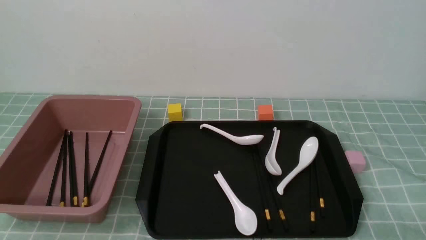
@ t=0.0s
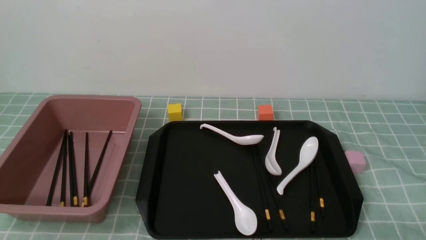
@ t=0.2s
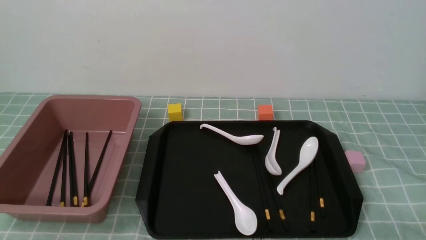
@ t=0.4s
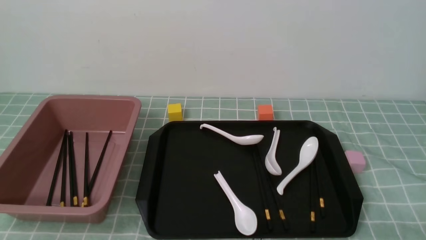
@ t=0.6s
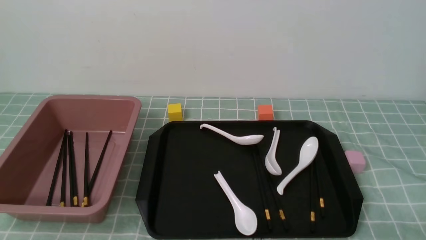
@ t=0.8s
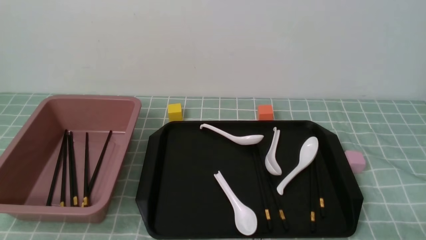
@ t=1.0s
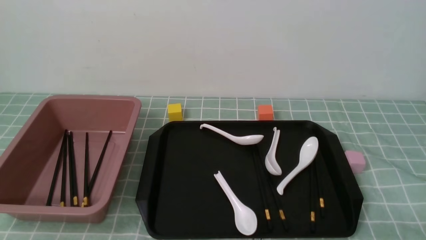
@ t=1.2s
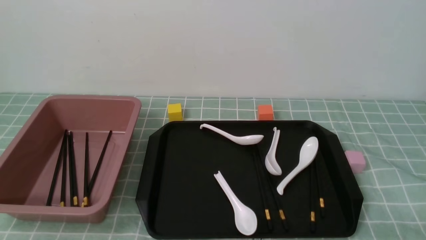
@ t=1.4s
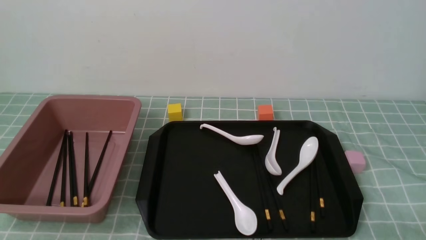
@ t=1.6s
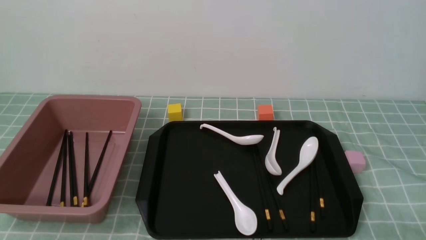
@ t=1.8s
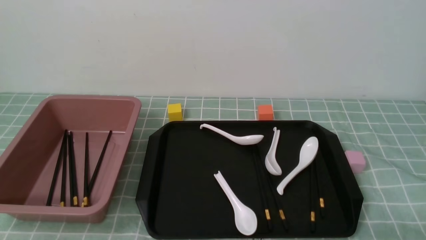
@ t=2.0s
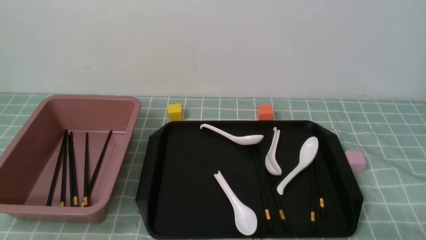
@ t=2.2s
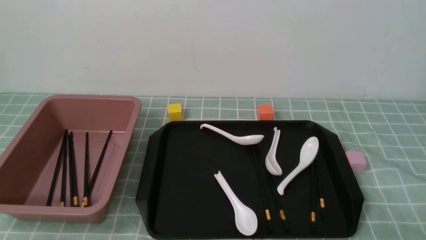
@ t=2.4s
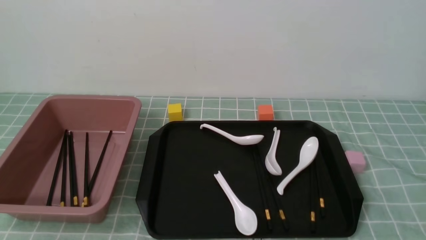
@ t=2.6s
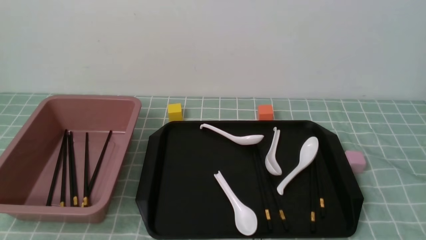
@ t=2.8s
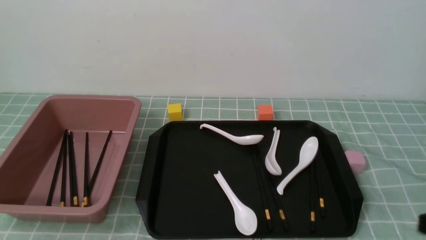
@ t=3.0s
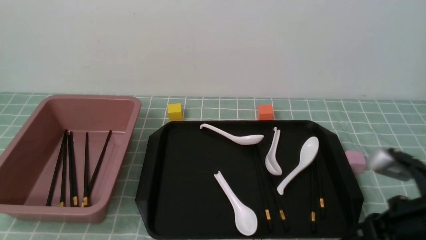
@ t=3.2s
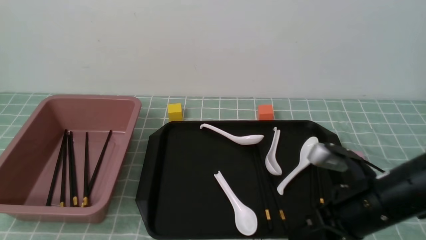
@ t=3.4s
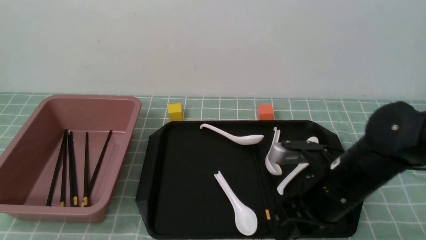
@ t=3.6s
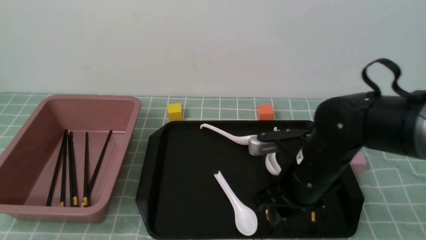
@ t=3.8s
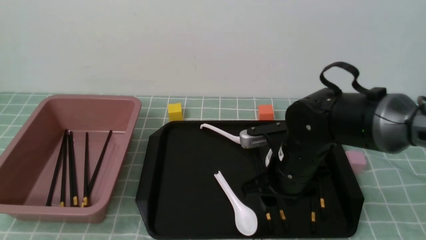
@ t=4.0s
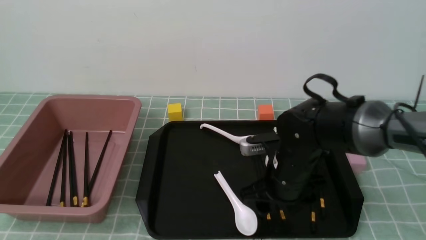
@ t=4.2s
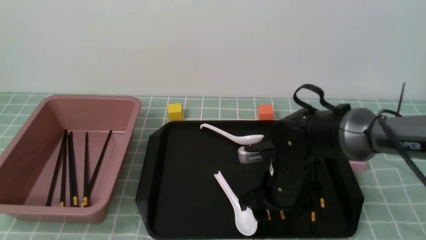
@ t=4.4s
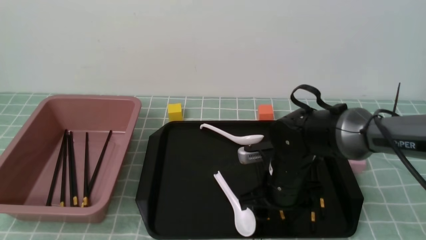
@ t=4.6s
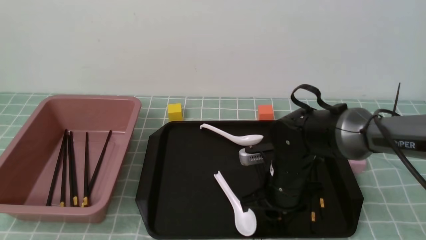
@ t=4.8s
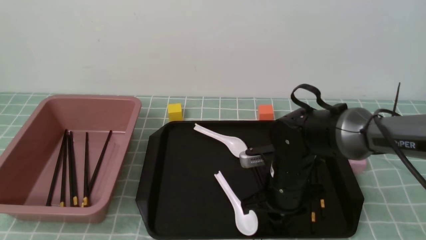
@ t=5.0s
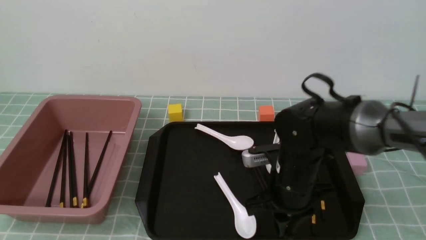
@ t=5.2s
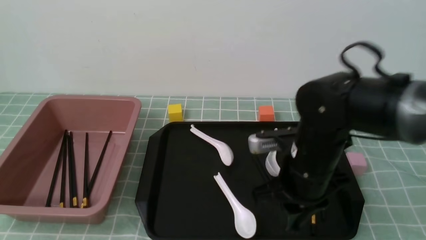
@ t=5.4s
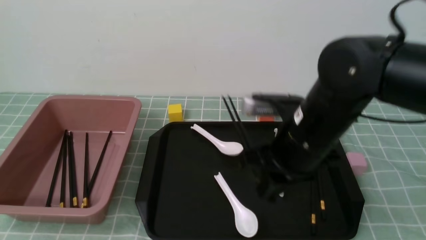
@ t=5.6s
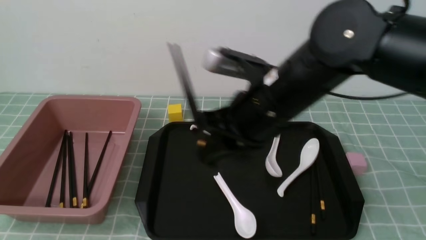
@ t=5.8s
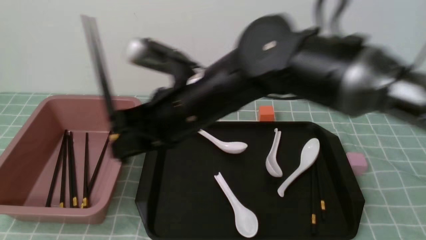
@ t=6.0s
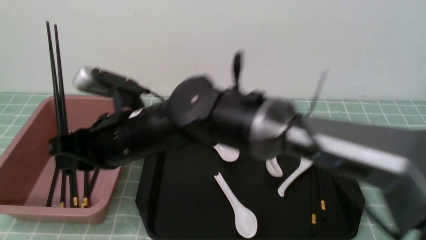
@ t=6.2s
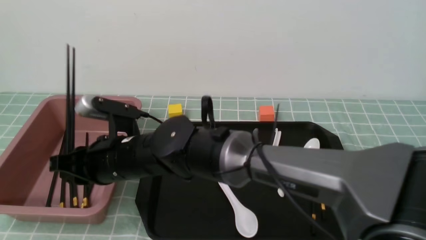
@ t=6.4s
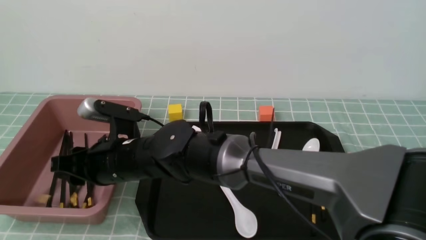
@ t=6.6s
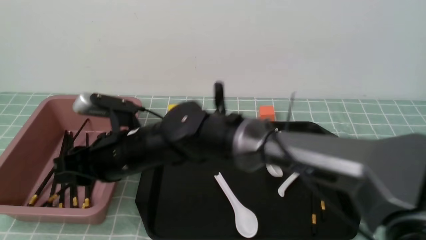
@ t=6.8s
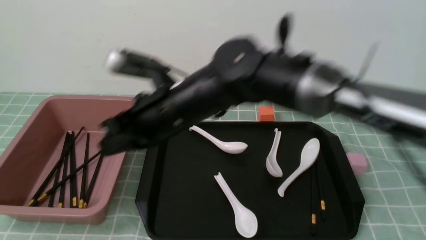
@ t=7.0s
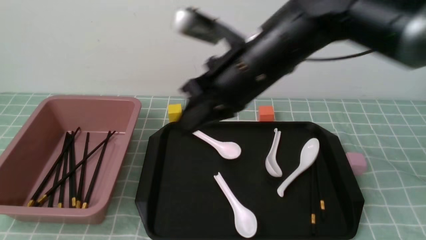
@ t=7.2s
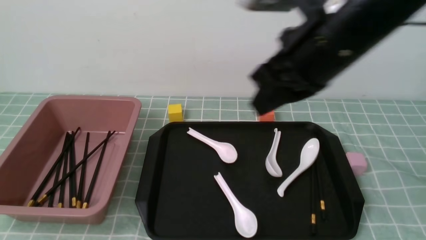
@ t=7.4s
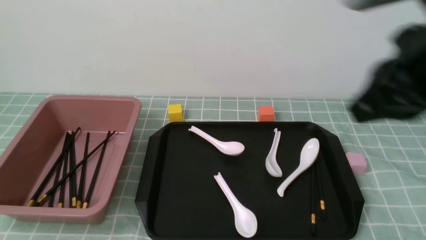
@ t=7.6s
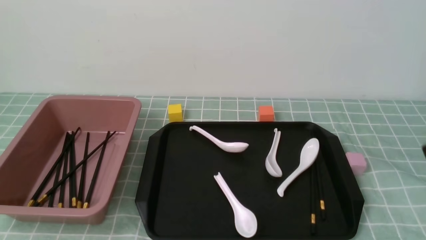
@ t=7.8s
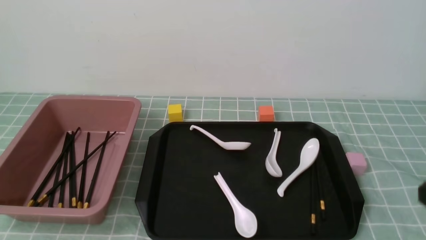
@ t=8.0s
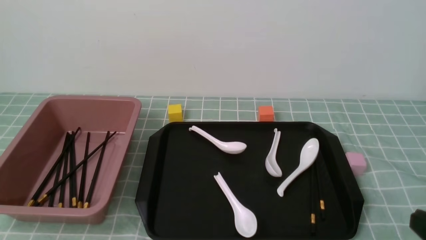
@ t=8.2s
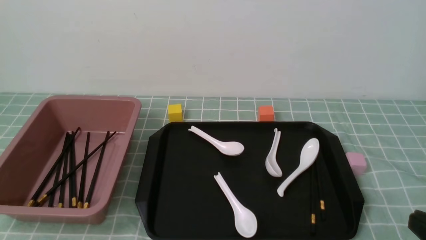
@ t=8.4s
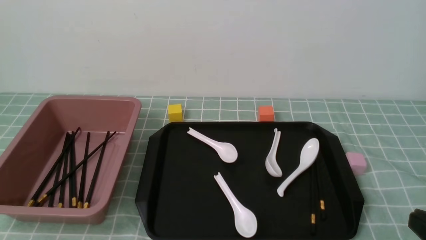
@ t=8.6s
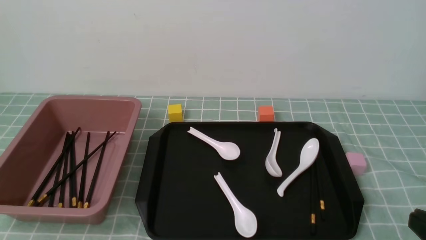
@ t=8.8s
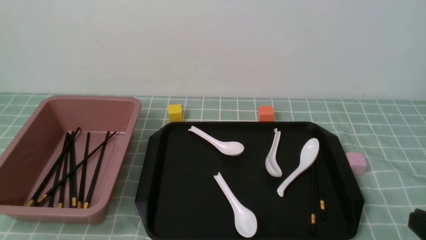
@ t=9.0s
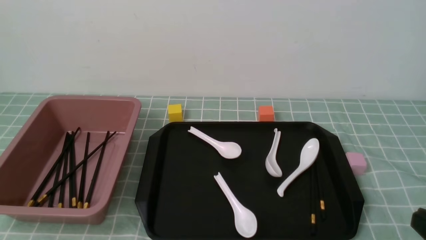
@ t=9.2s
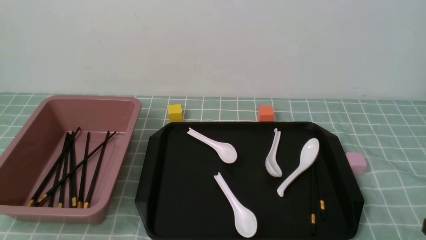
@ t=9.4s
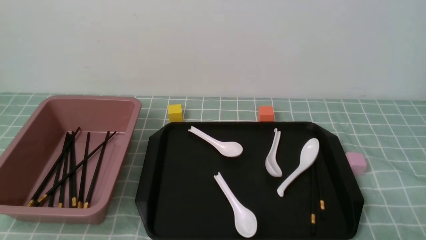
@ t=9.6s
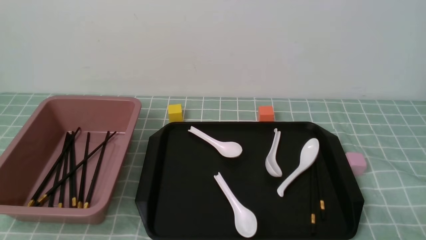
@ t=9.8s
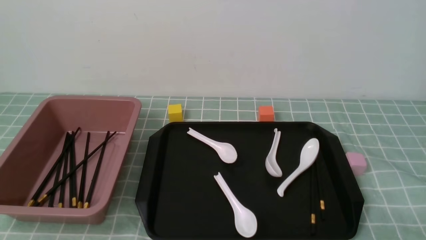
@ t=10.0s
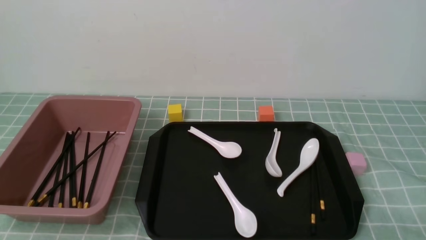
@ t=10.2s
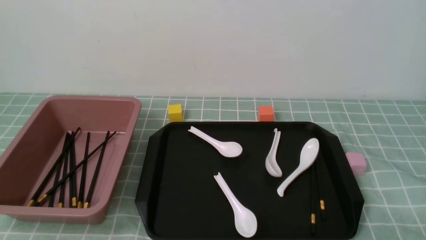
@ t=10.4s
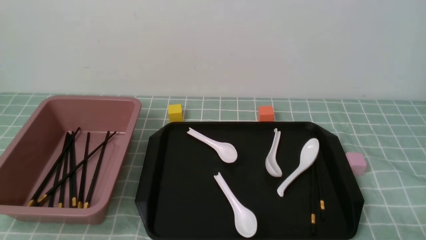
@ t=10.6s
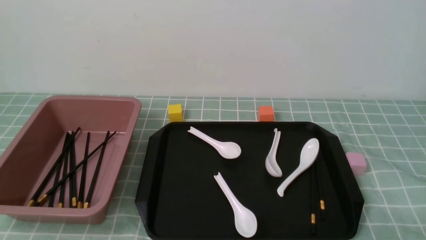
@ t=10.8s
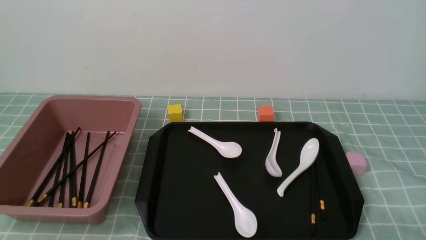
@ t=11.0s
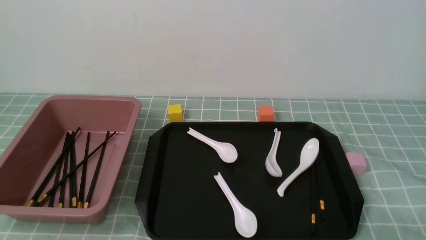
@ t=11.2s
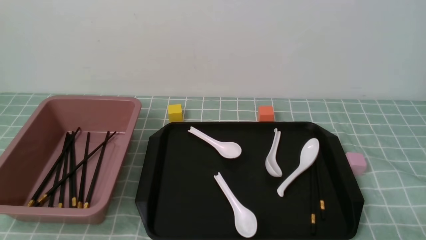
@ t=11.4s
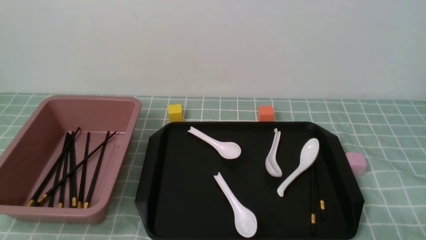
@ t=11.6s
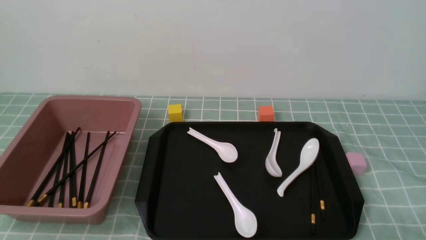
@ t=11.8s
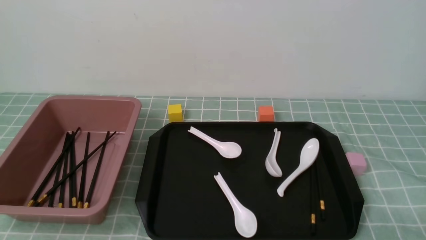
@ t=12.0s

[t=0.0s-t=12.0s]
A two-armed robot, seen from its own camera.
Step, t=0.0s to t=5.4s: use the right arm to grab a pair of chopsticks.
Step, t=5.6s to t=6.8s: use the right arm to put the chopsticks into the lunch box.
t=0.0s to t=1.6s: Neither gripper changes place.
t=3.0s to t=4.4s: The right gripper shifts some 25 cm forward, to the left and downward, and opens.
t=4.4s to t=6.0s: The right gripper shifts about 20 cm upward and to the left, and closes up, while the left gripper opens up.
t=6.0s to t=7.6s: The right gripper goes some 25 cm to the right, upward and backward.
t=7.6s to t=9.0s: The right gripper shifts roughly 20 cm downward, backward and to the right.
t=9.0s to t=10.4s: The right gripper heads downward, covering roughly 10 cm.
t=10.4s to t=12.0s: Both grippers stay about where they are.
